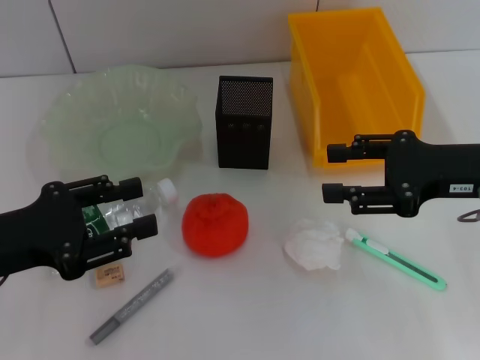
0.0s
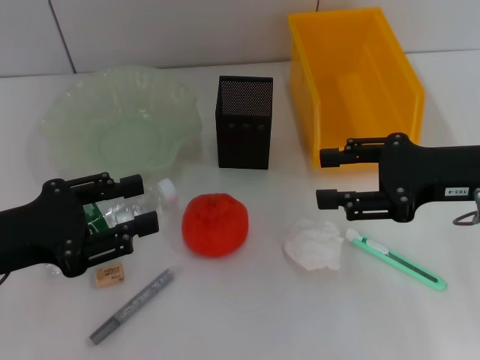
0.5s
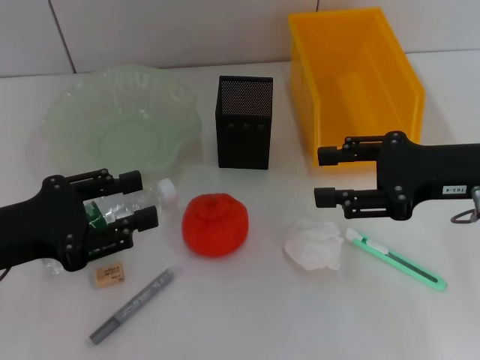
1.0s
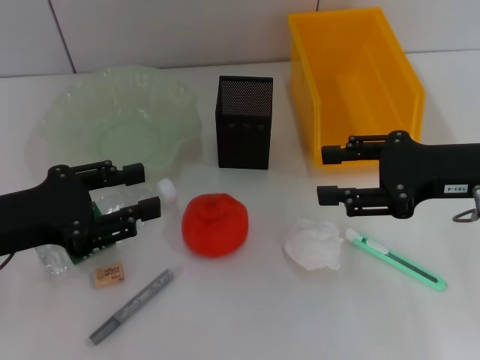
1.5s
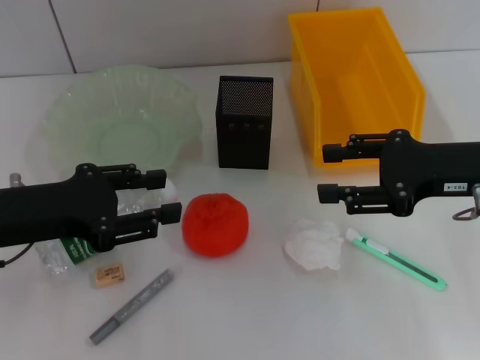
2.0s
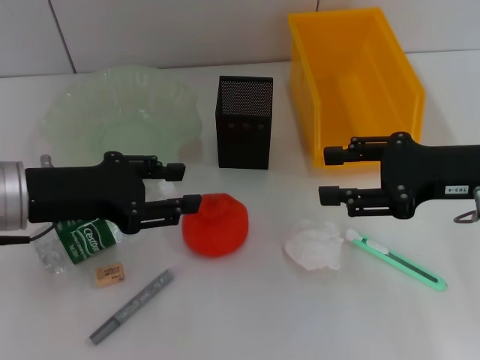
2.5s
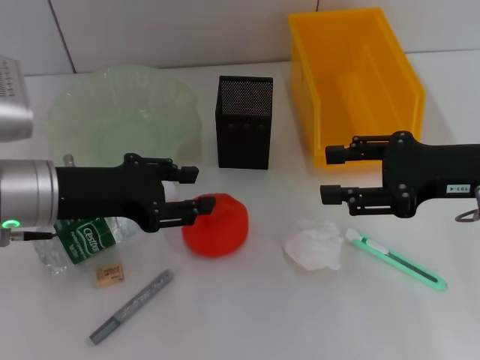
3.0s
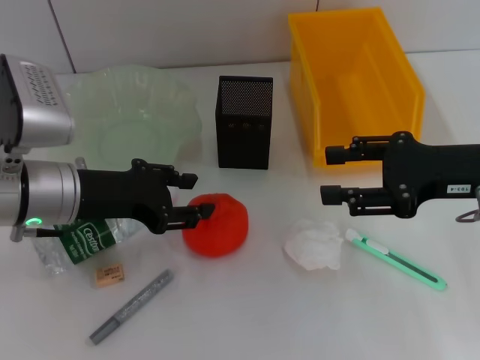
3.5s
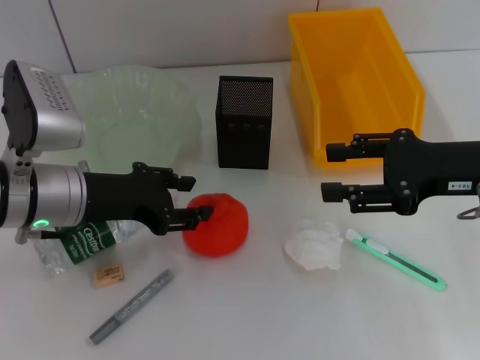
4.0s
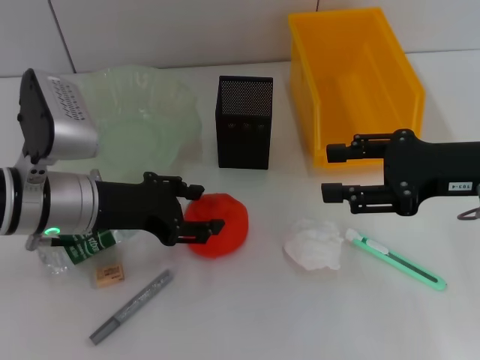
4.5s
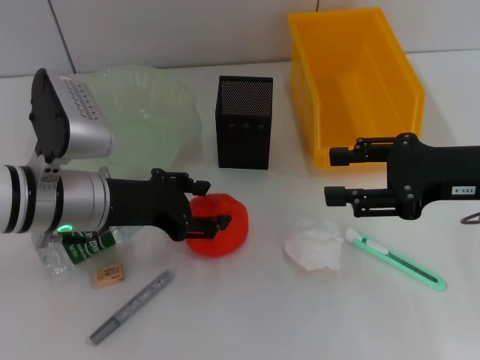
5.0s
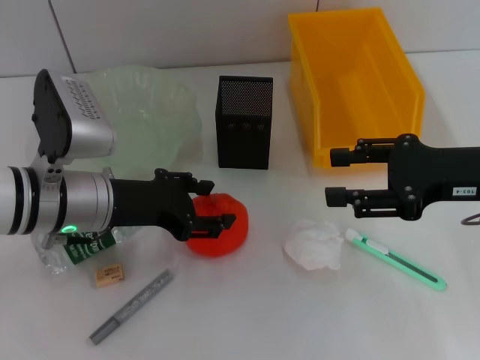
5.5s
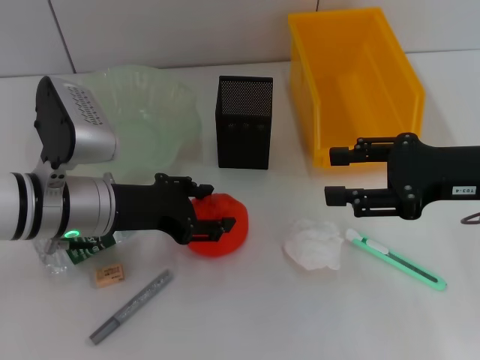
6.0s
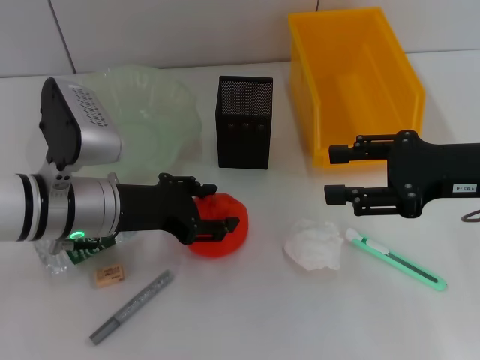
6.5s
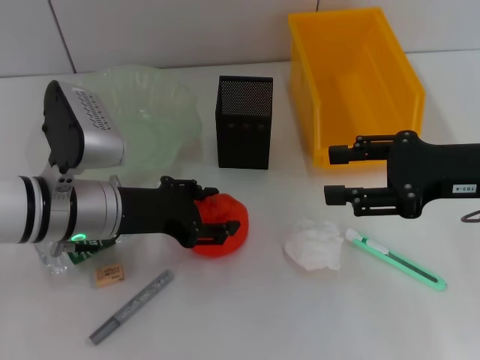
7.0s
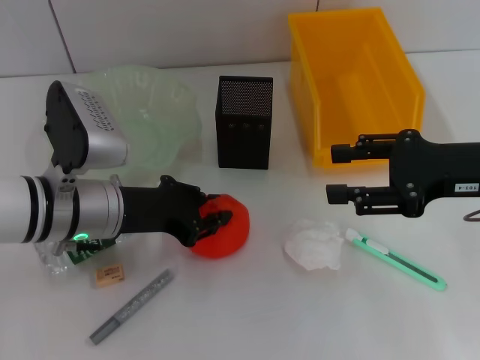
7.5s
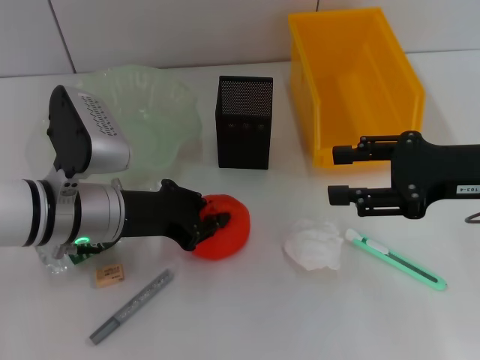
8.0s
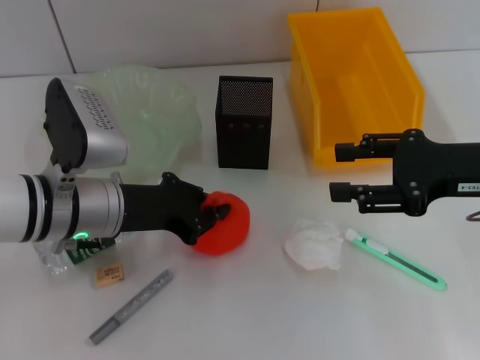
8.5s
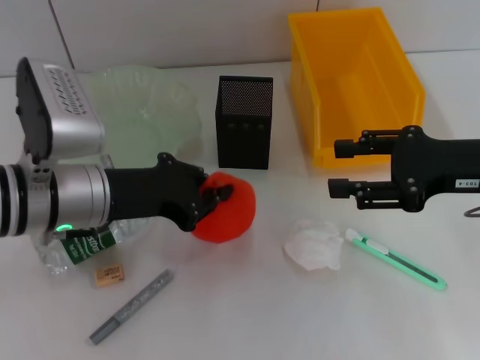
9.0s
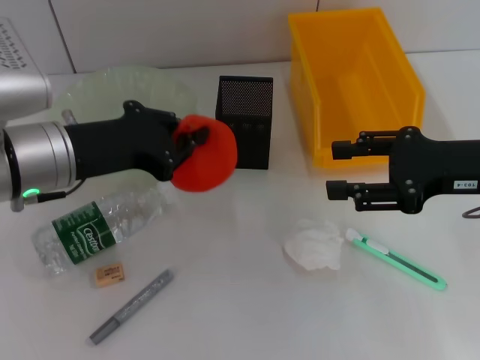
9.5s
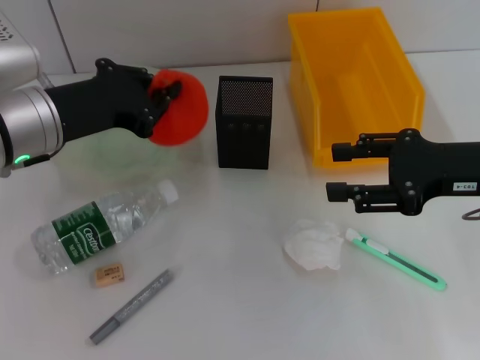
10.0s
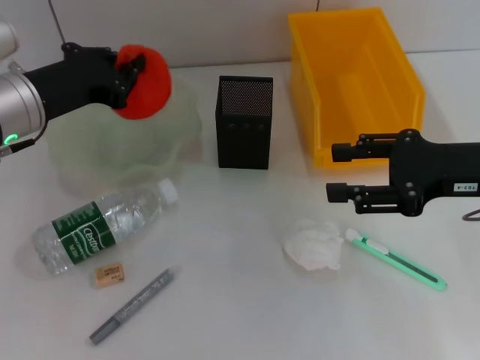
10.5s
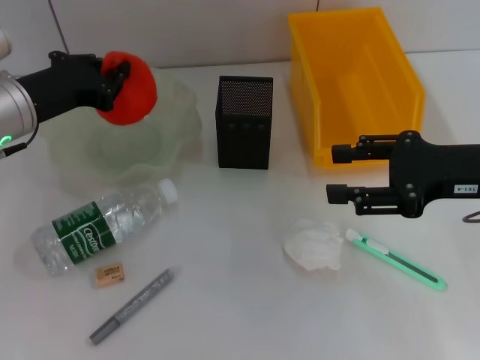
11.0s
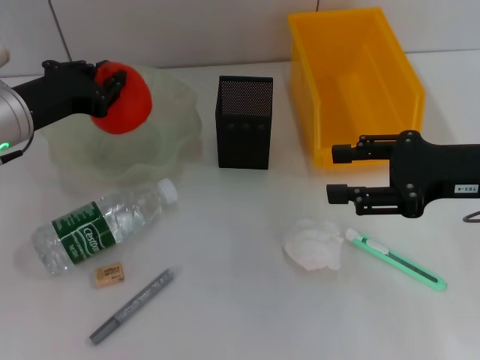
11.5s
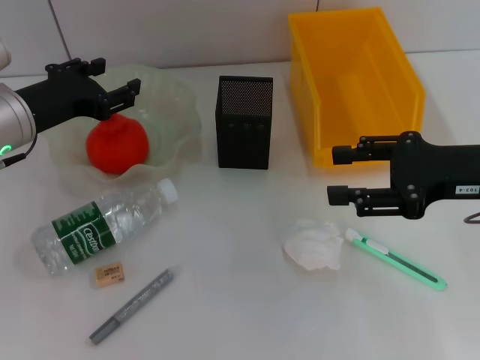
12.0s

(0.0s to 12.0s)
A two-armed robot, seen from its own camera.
Step, 0.0s - 7.5s: Grab the orange with the left hand.
Step, 8.0s - 12.0s: Place the orange into the fruit bowl with the left hand.
0.0s - 2.0s: The grippers stay close to where they were, moving slightly.
2.0s - 4.0s: The left gripper heads to the right, covering roughly 5 cm.
4.0s - 6.0s: The grippers stay close to where they were, moving slightly.
6.0s - 8.0s: The left gripper closes.
8.0s - 10.0s: The left gripper goes about 10 cm upward.
10.0s - 12.0s: The left gripper moves about 5 cm, and opens up.

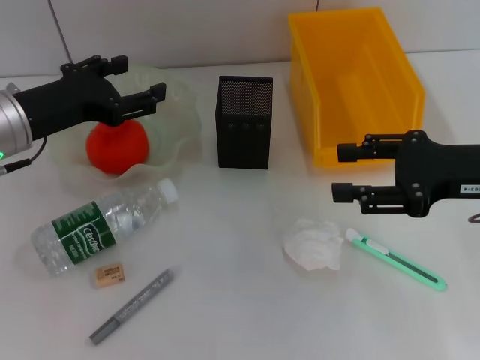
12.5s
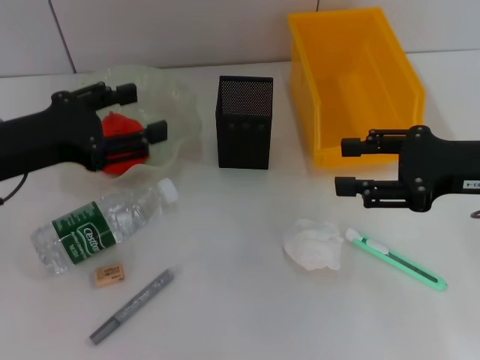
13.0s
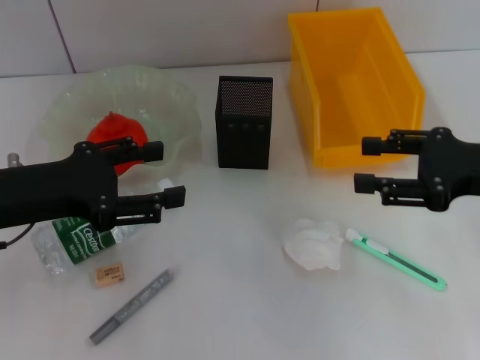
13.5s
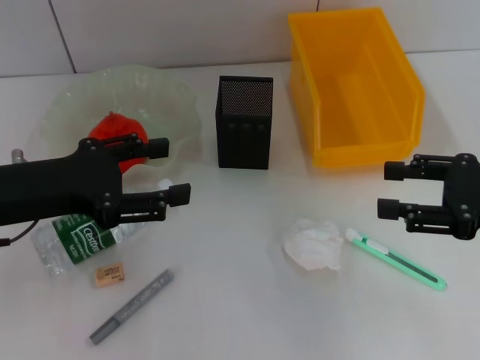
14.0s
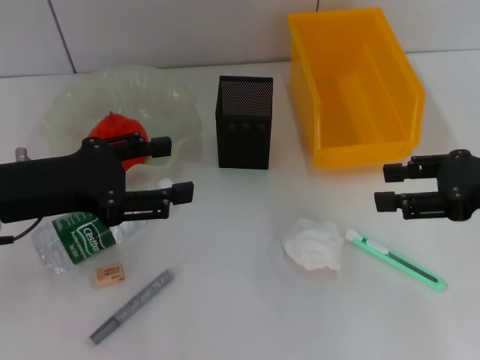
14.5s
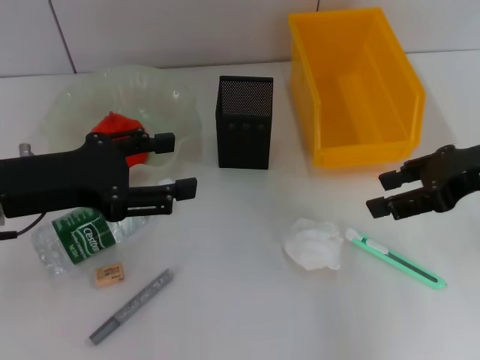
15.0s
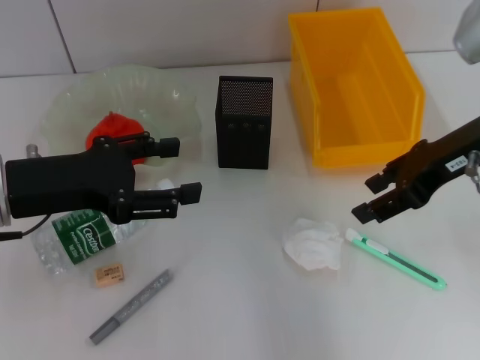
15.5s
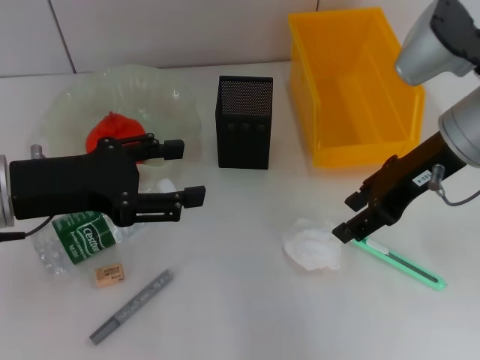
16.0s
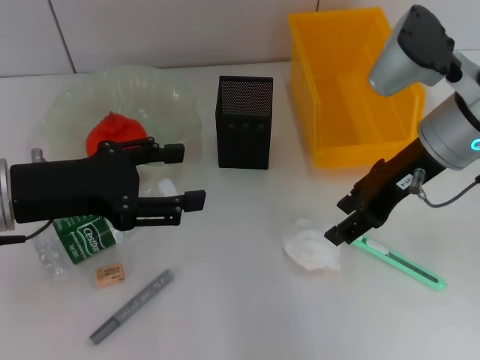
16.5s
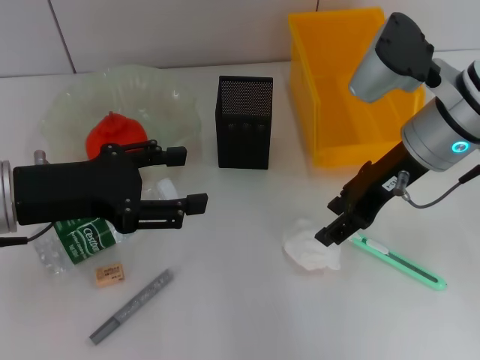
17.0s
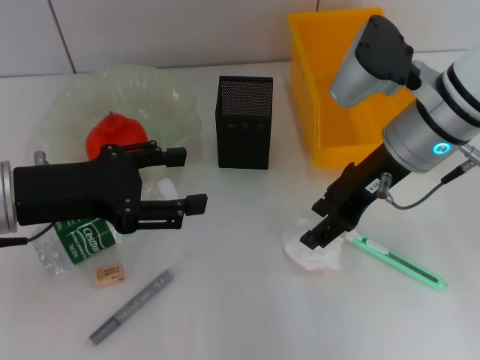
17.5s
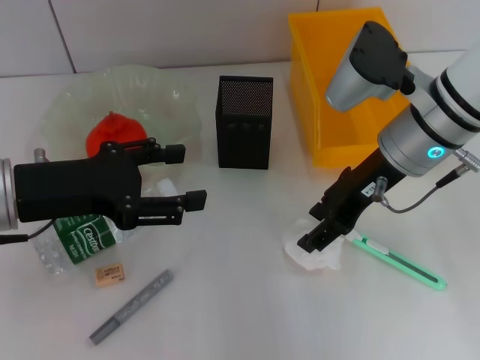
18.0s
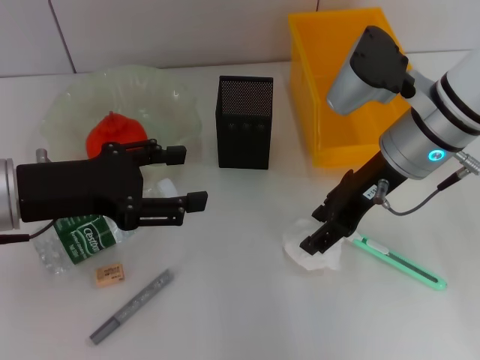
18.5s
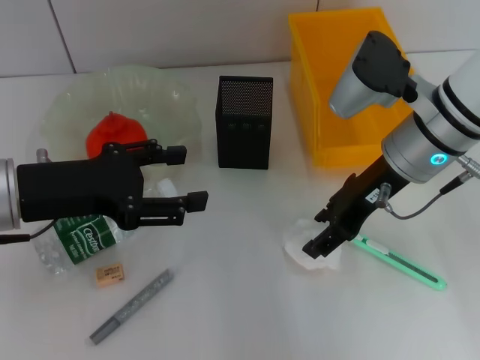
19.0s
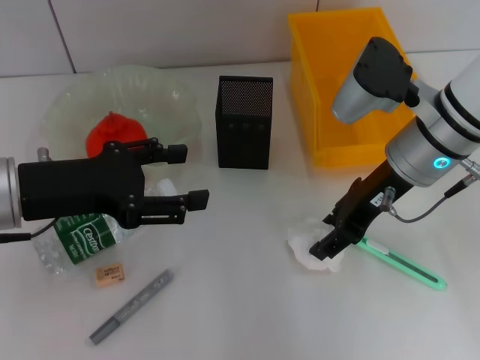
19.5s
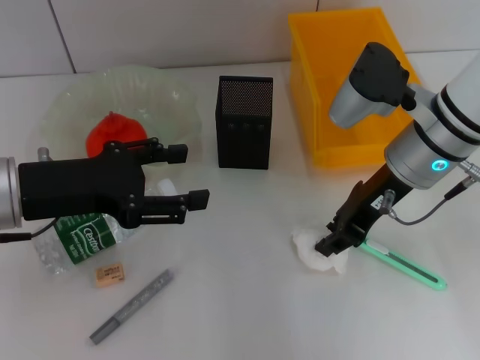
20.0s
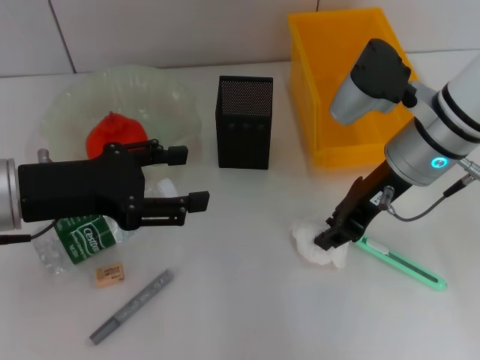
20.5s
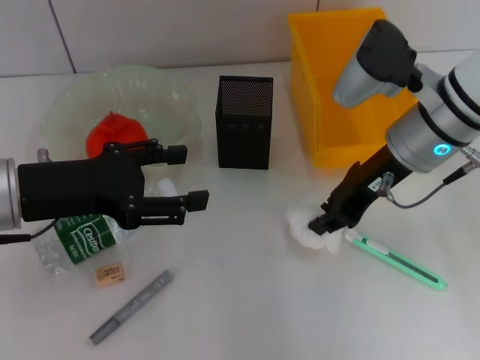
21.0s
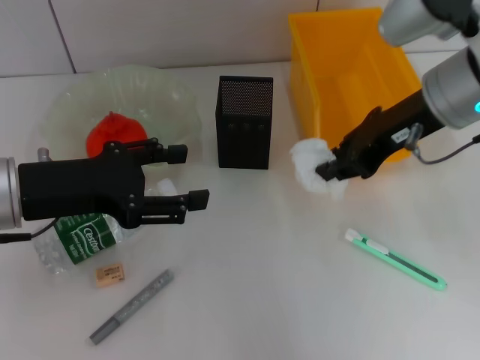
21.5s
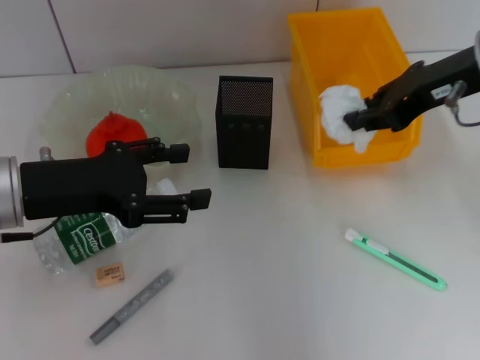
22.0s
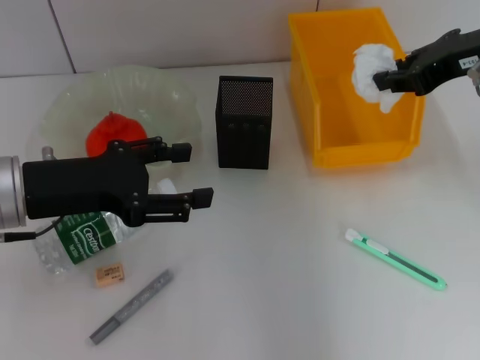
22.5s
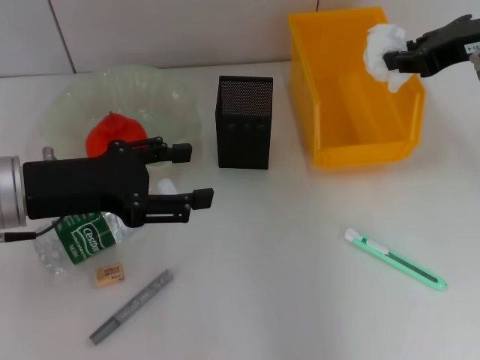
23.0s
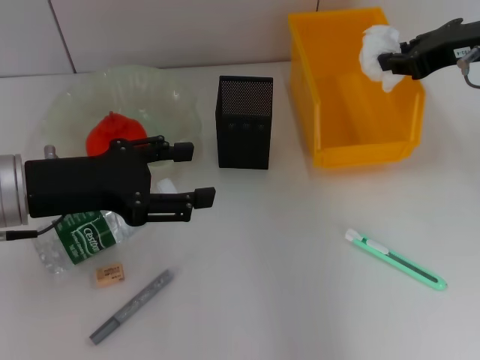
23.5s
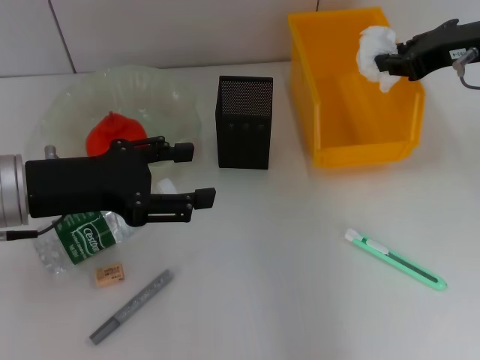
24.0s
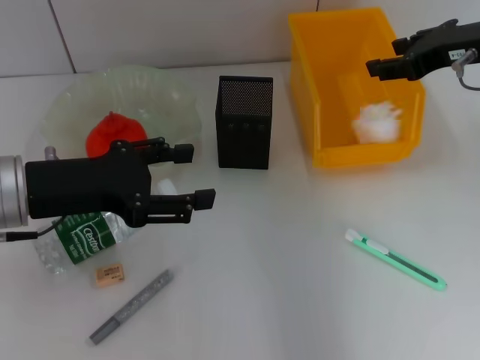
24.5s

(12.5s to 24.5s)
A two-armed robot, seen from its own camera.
Step, 12.5s - 20.0s: Grab the paper ball with the right hand.
12.5s - 14.5s: The left gripper is displaced backward by roughly 5 cm.
14.5s - 16.5s: The right gripper is displaced to the left and forward by about 15 cm.
16.5s - 18.5s: The grippers stay close to where they were, moving slightly.
18.5s - 20.5s: The right gripper closes.
20.5s - 22.5s: The right gripper heads upward and to the right, covering roughly 15 cm.
22.5s - 24.5s: The right gripper opens its fingers.

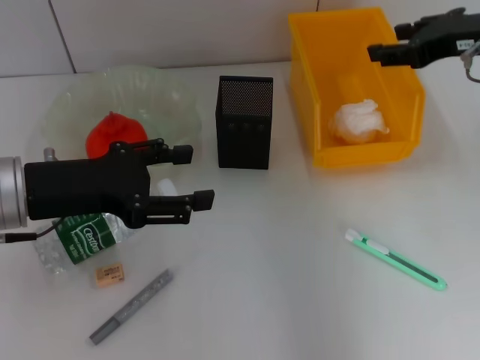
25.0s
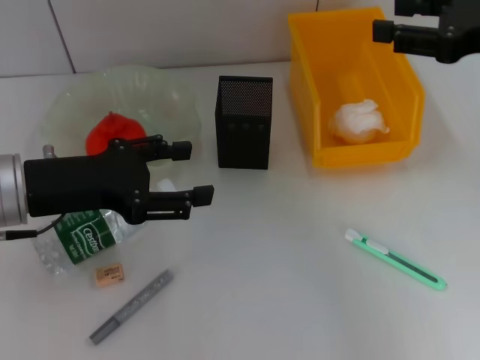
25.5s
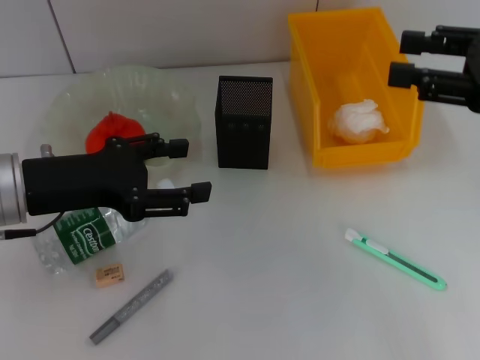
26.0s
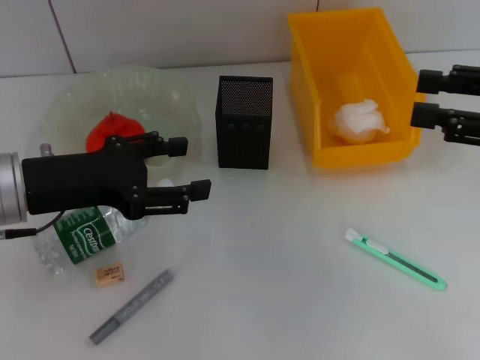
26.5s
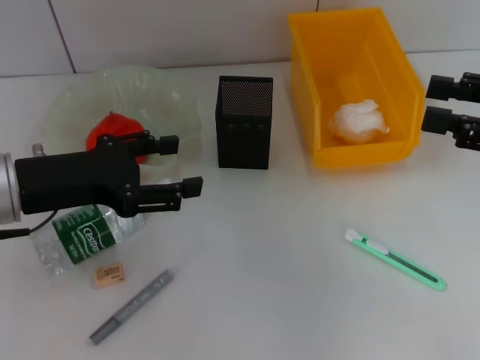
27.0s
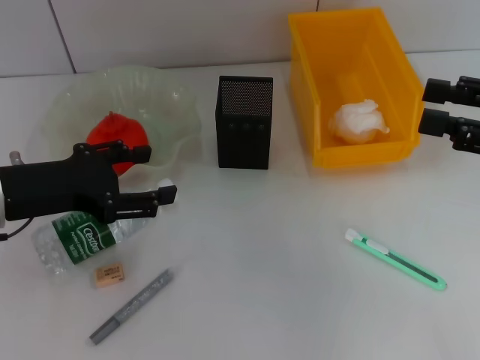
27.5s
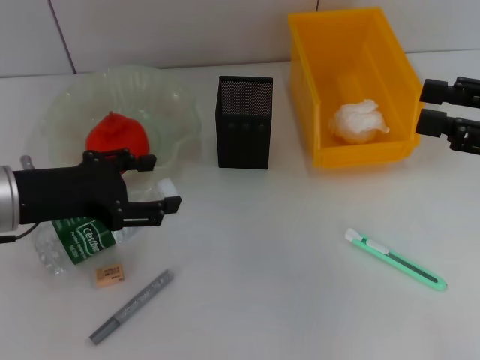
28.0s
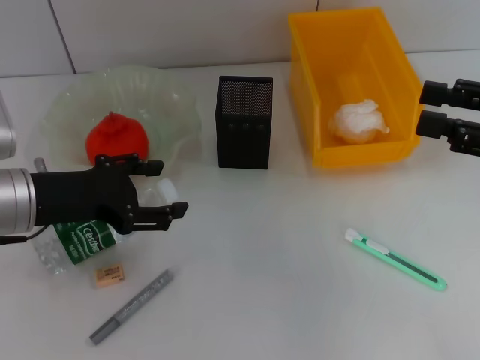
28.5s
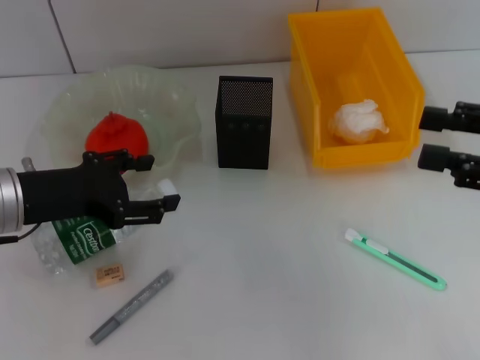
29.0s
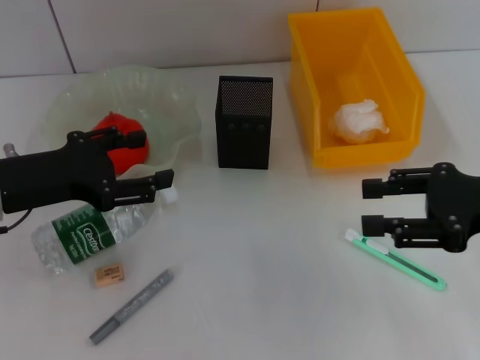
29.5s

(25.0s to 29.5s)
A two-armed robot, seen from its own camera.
25.0s - 27.0s: The right gripper shifts about 15 cm backward and to the right.
27.0s - 29.5s: The right gripper moves about 5 cm.
